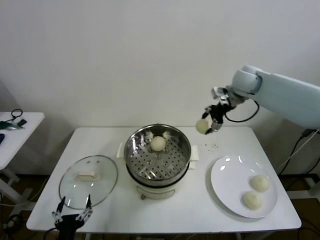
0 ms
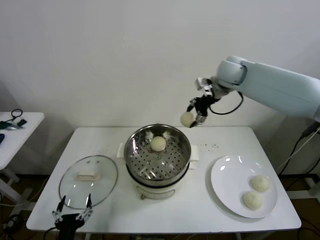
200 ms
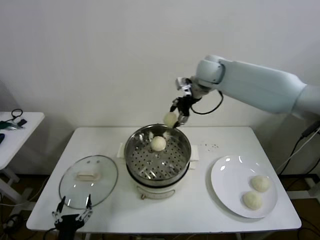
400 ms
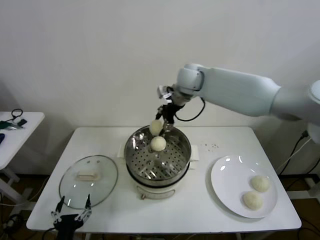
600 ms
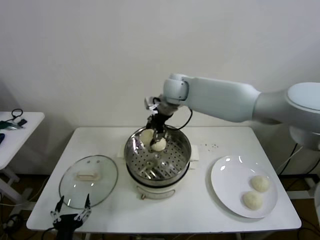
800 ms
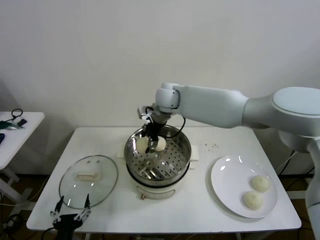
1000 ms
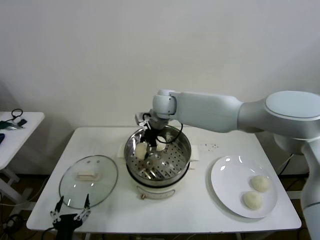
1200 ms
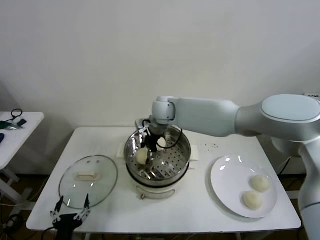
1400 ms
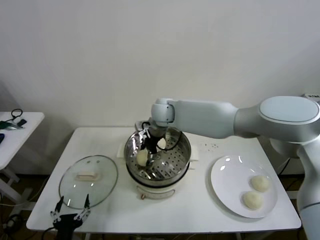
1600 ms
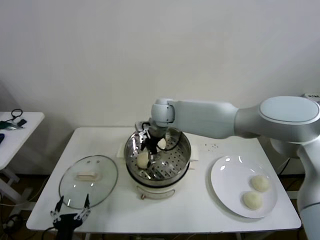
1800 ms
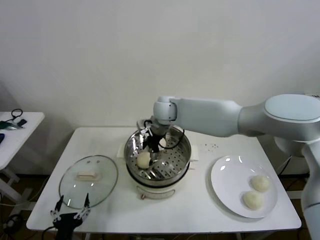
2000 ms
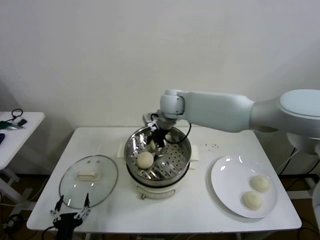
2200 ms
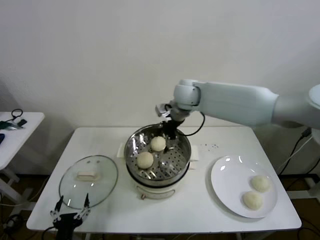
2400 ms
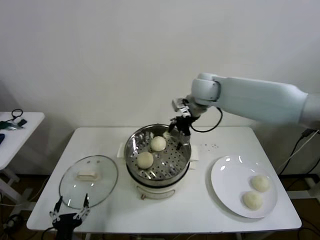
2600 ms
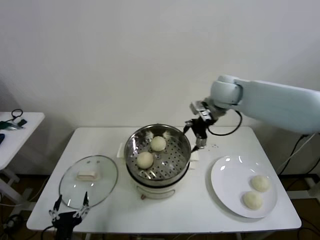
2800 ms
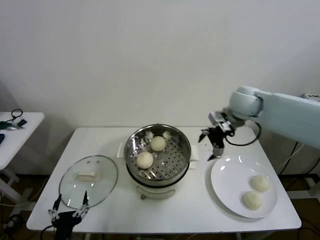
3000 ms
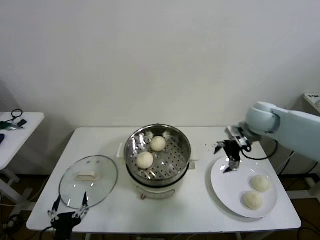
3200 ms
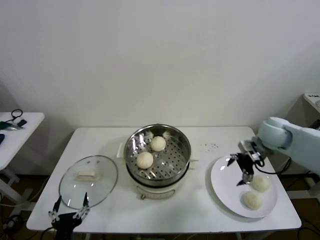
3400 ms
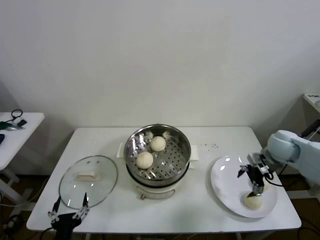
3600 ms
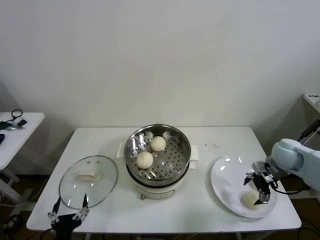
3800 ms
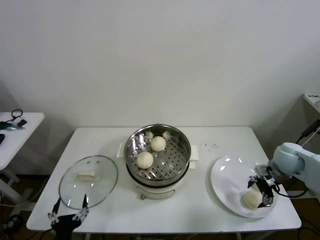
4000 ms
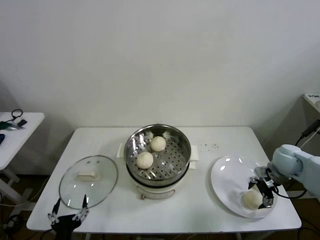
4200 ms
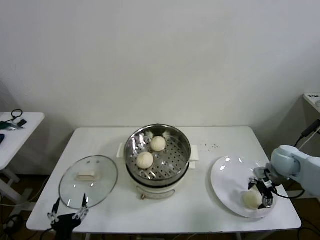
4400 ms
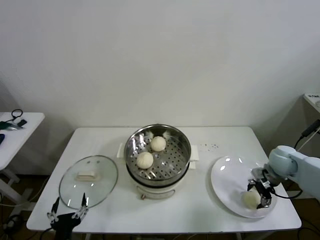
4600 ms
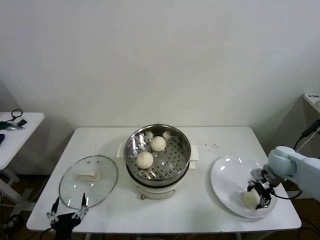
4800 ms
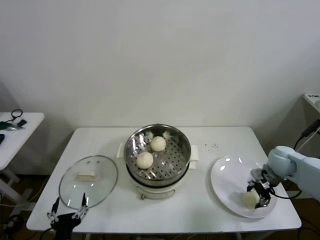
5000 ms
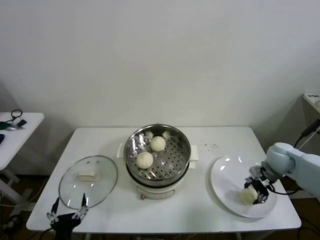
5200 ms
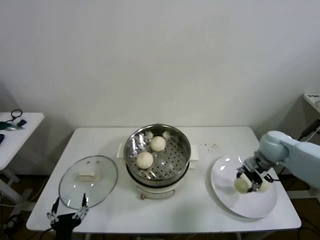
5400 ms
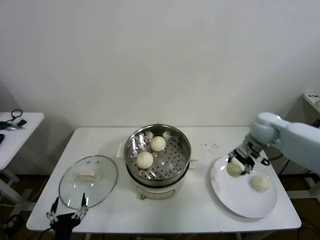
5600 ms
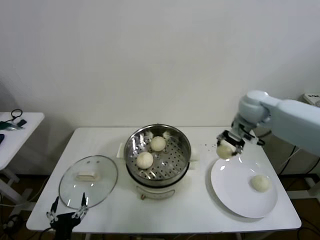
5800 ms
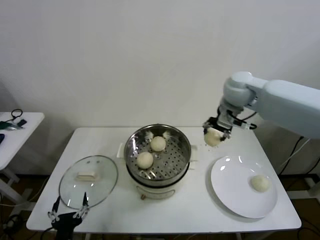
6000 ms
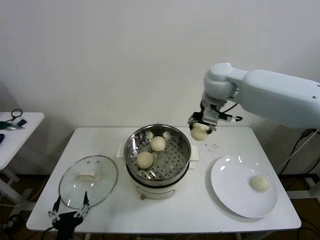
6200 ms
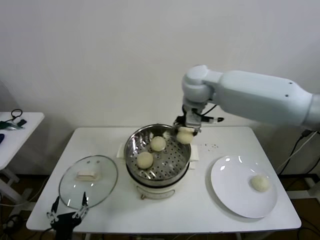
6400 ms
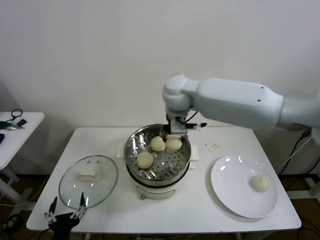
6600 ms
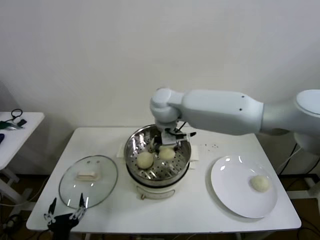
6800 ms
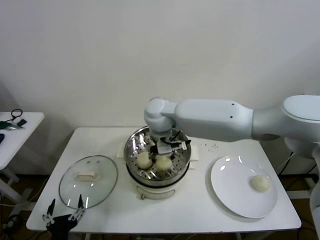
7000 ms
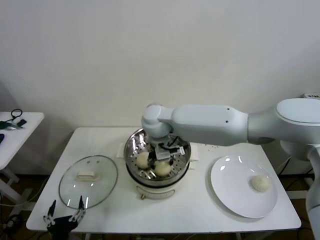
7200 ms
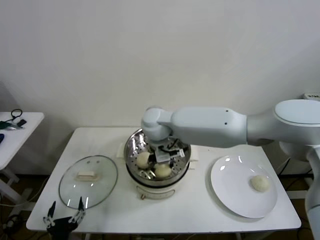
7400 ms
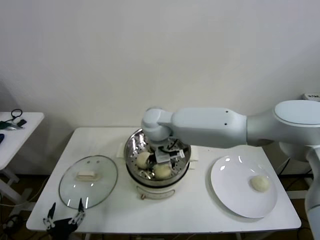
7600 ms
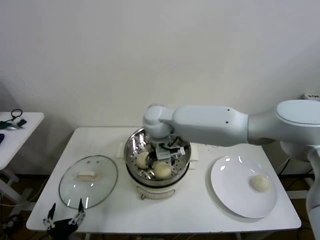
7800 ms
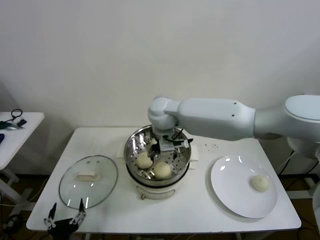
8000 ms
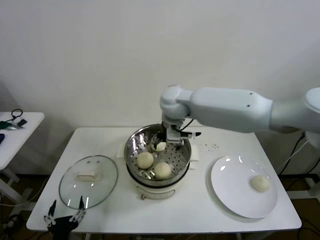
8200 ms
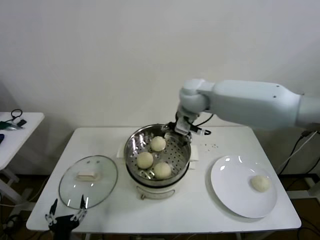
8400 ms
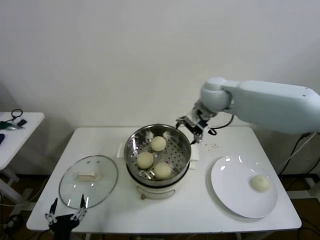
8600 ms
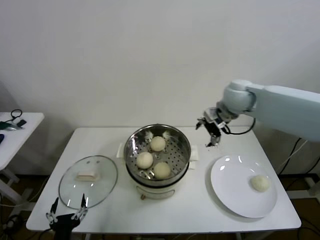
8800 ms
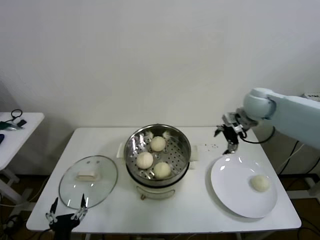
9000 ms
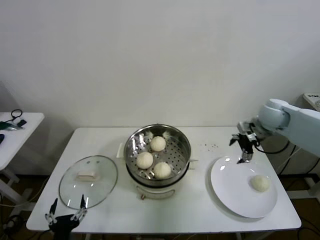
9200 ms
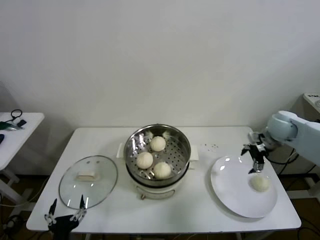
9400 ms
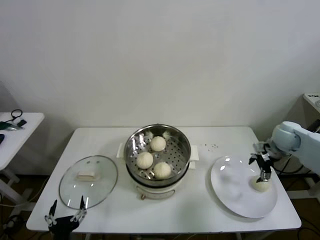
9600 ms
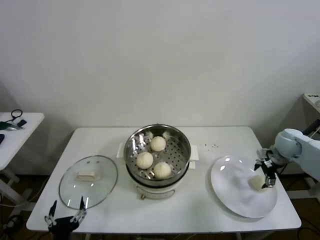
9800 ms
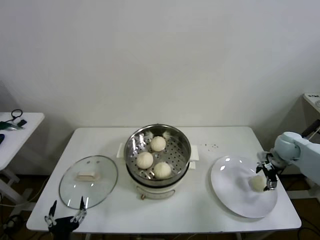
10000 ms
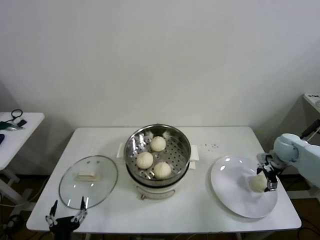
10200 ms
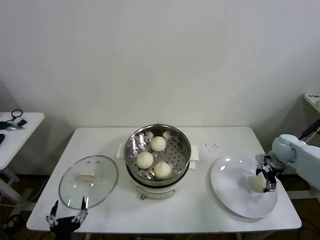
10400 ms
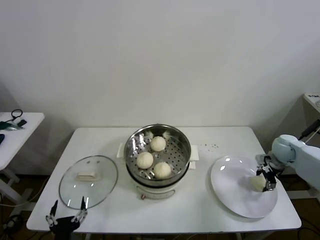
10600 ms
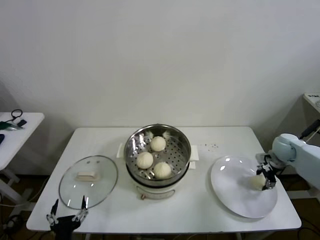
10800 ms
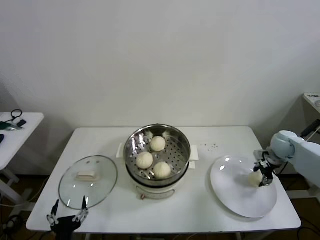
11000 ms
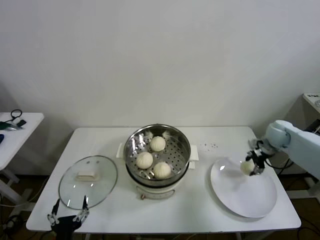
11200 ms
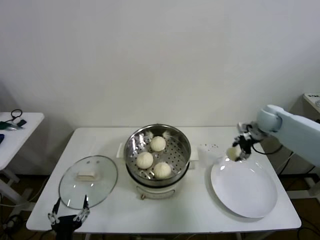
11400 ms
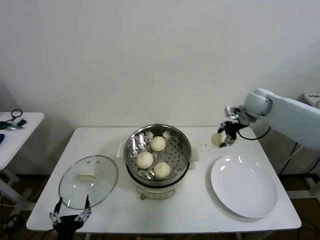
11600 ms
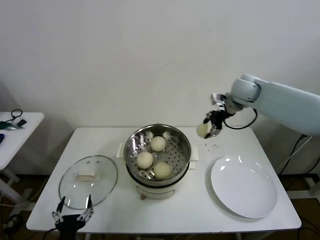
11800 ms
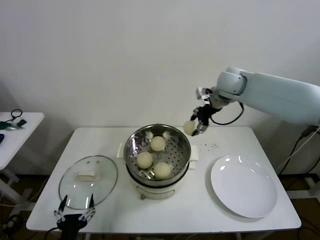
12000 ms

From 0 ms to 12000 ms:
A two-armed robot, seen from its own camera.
Step, from 0 ms to 1800 ms: Place the baozi on the steamer with right gripper.
Step, from 2000 ms to 4800 ms: Grasp the baozi in the plate with right gripper.
Step, from 5000 ms to 7400 ms: Place the baozi on the steamer with right gripper.
Step, from 7800 ms to 10600 ms: Grasp the baozi in the plate with right gripper.
From 0 ms to 1600 ms: The right gripper moves to the left and downward, roughly 30 cm.
From 1600 ms to 3000 ms: The right gripper travels to the right by some 25 cm, and opens.
From 3000 ms to 4400 ms: The right gripper goes approximately 25 cm downward, to the right and backward.
From 4400 ms to 6000 ms: The right gripper shifts approximately 35 cm upward, to the left and forward, and closes up.
From 6000 ms to 7600 ms: The right gripper is displaced to the left and downward by some 25 cm, and opens its fingers.
From 7600 ms to 9000 ms: The right gripper heads to the right, covering about 35 cm.
From 9000 ms to 10400 ms: The right gripper goes some 25 cm downward and to the right.
From 10400 ms to 12000 ms: The right gripper shifts approximately 35 cm to the left, upward and forward, and closes its fingers.

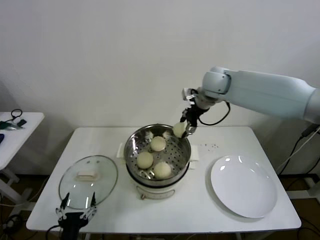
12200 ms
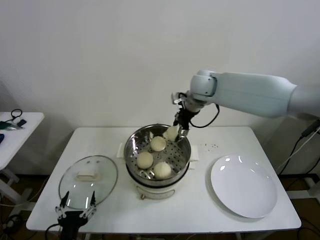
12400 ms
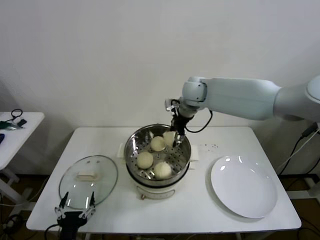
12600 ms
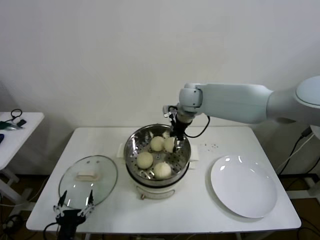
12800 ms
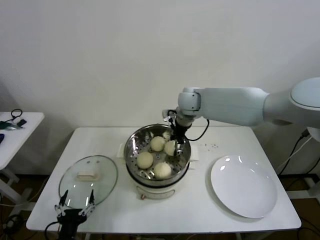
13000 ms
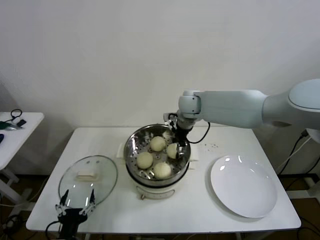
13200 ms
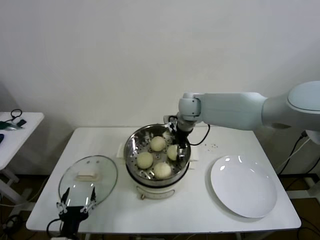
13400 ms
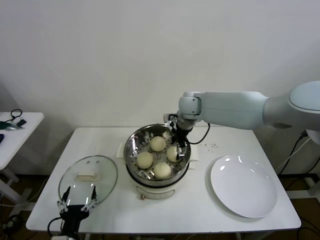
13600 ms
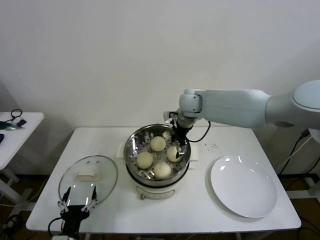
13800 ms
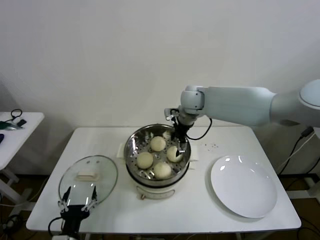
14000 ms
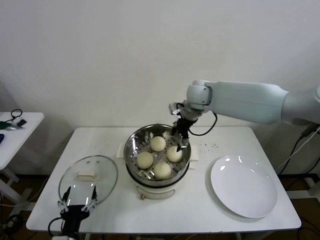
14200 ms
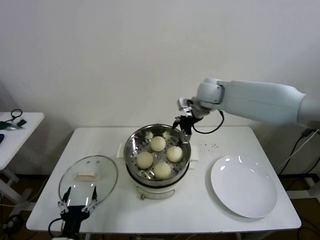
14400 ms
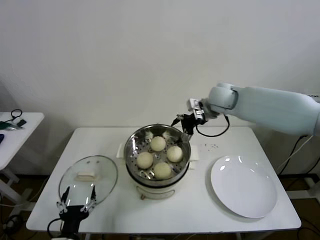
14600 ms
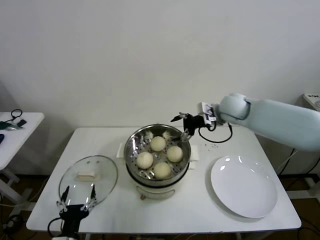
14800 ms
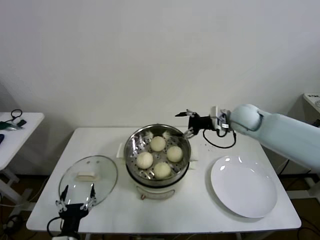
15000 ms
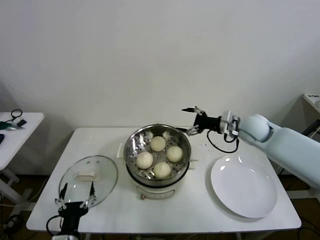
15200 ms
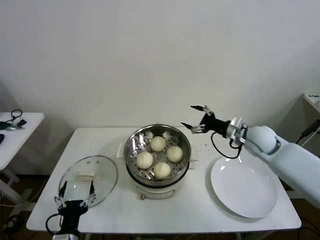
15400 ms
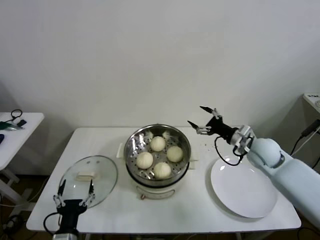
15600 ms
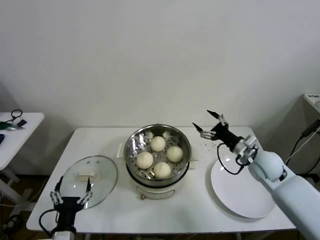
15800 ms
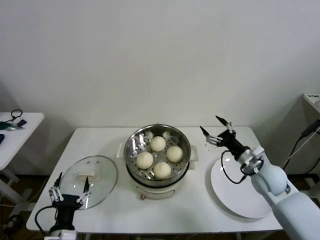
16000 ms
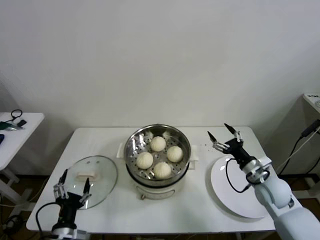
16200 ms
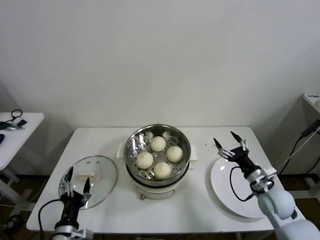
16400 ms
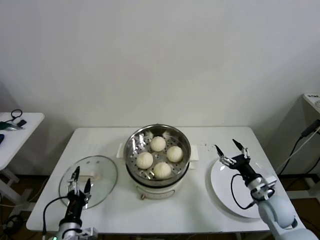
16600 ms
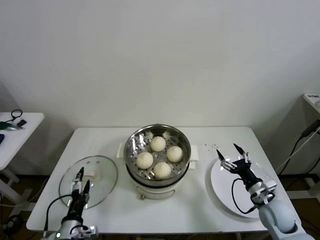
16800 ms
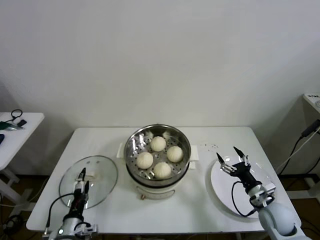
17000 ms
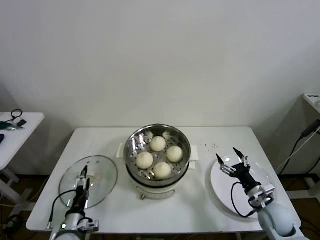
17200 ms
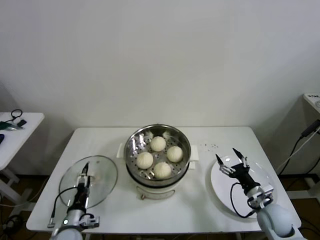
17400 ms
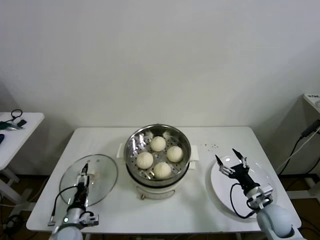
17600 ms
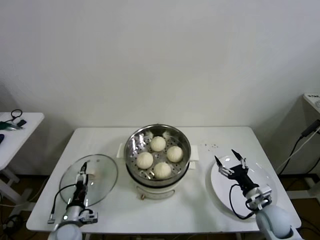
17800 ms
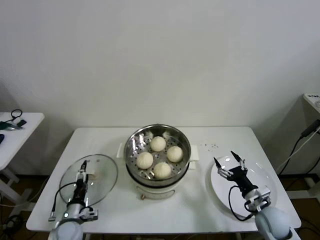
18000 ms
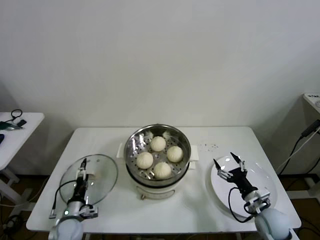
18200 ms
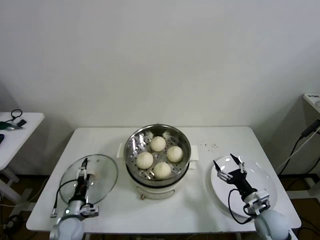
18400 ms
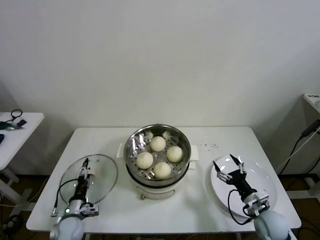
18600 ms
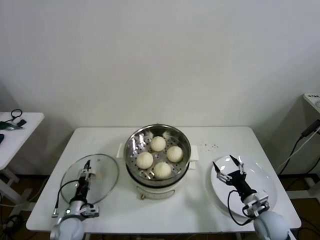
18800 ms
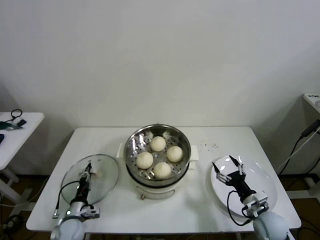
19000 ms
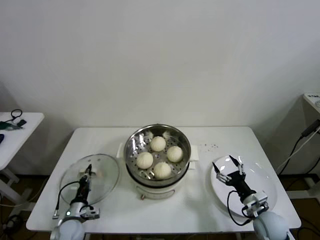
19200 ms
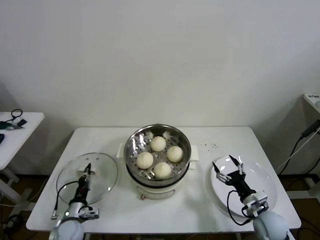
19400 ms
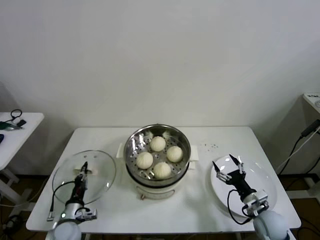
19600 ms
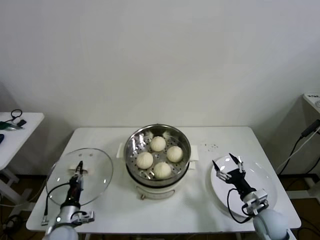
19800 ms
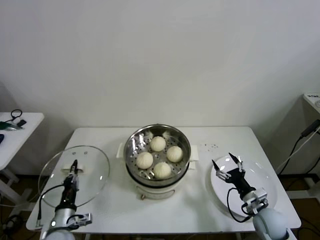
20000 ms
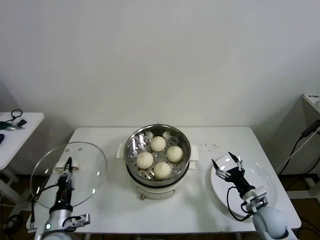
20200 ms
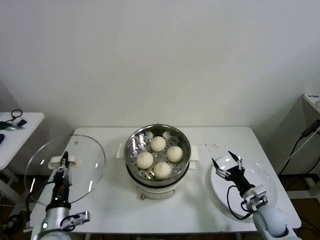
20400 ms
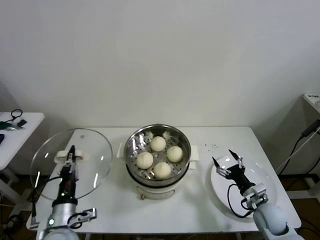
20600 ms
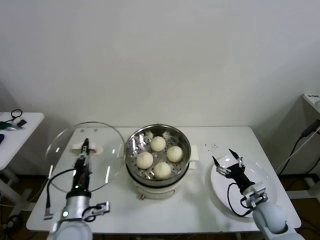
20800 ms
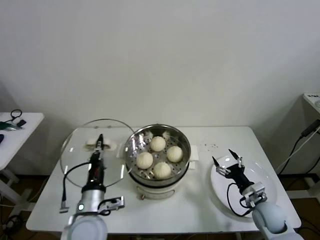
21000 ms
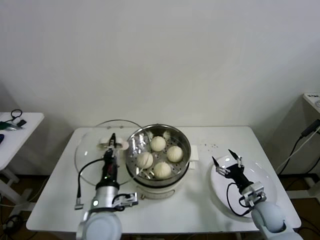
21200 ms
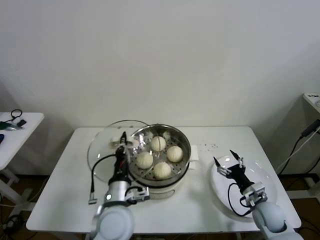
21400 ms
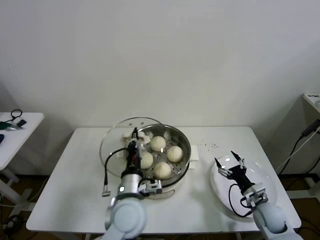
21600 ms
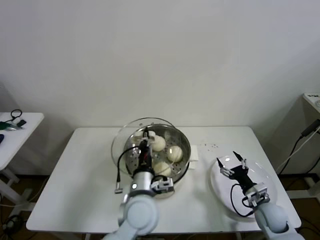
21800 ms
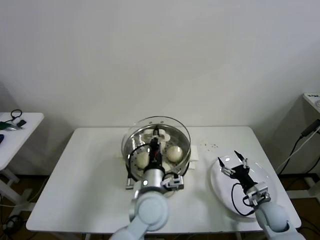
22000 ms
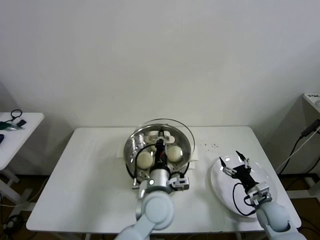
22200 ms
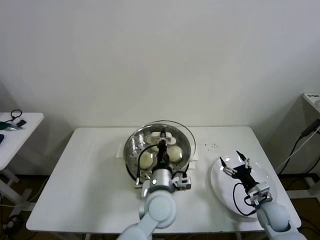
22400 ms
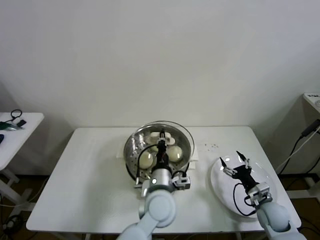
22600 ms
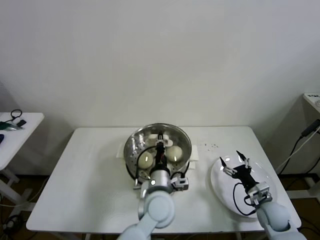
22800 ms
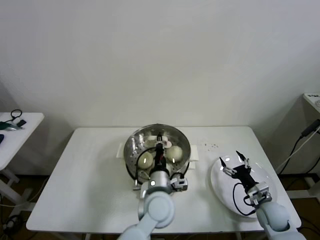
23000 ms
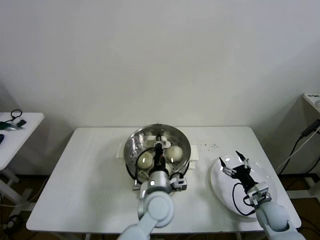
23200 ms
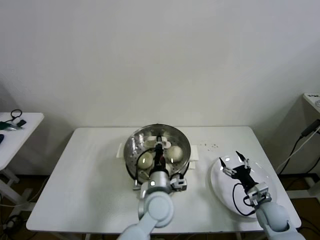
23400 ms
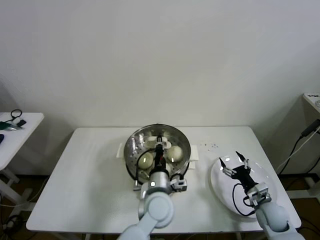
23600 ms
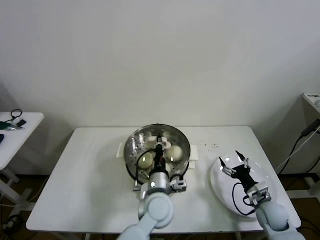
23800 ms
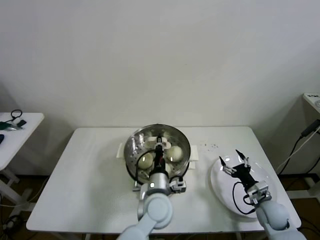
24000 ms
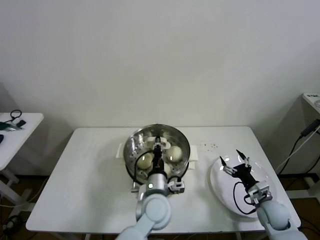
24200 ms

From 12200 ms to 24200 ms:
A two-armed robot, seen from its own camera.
Step, from 13800 ms to 19000 ms: Grasp the pot lid with left gripper.
From 12200 ms to 13800 ms: The right gripper moves downward and to the left, about 10 cm, and opens up.
From 13800 ms to 15200 ms: The right gripper heads to the right and backward, covering some 20 cm.
From 15200 ms to 16600 ms: The right gripper heads backward and downward, covering approximately 25 cm.
From 16600 ms to 18200 ms: The right gripper changes place by some 5 cm, while the left gripper moves forward, downward and to the left, some 15 cm.
From 18200 ms to 19800 ms: The left gripper closes up.
From 19800 ms to 21200 ms: The left gripper moves upward and to the right, roughly 25 cm.
From 21200 ms to 22600 ms: The left gripper is displaced to the right by approximately 15 cm.
From 22600 ms to 24200 ms: There are only small adjustments of the grippers.
